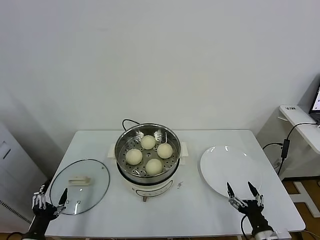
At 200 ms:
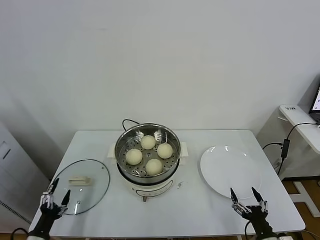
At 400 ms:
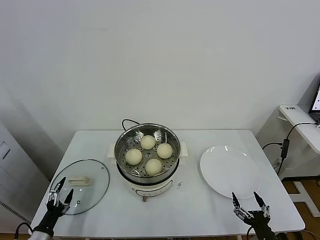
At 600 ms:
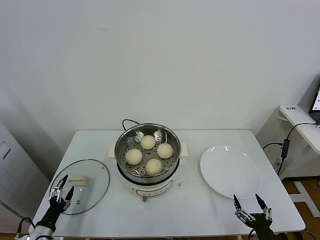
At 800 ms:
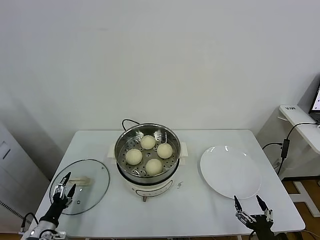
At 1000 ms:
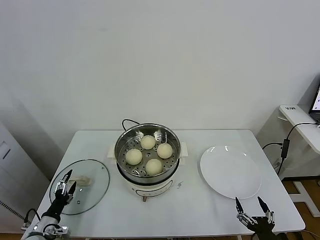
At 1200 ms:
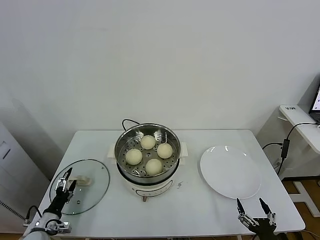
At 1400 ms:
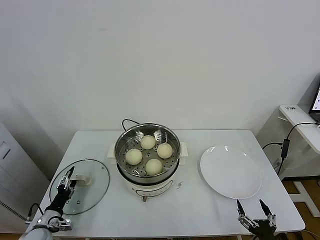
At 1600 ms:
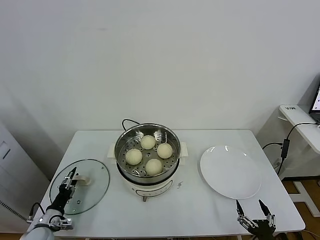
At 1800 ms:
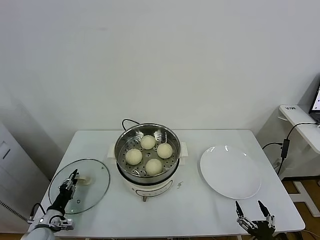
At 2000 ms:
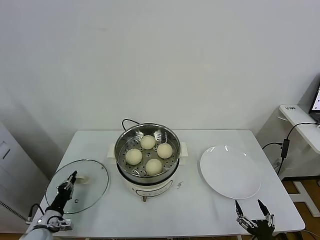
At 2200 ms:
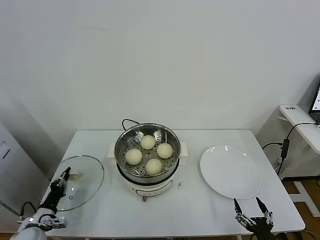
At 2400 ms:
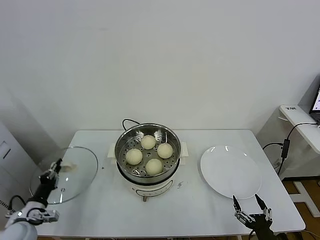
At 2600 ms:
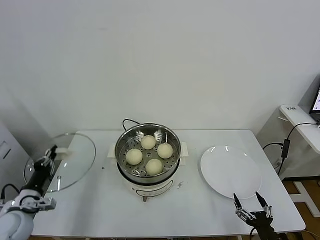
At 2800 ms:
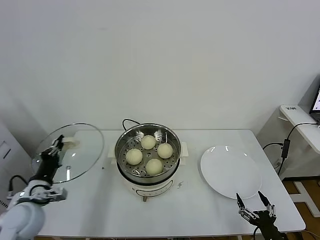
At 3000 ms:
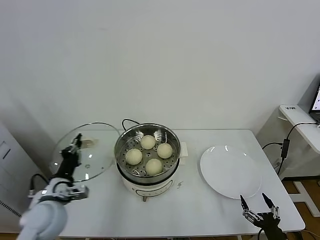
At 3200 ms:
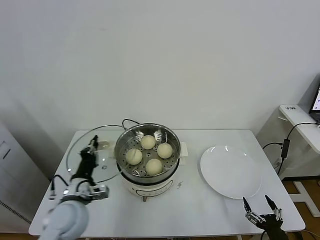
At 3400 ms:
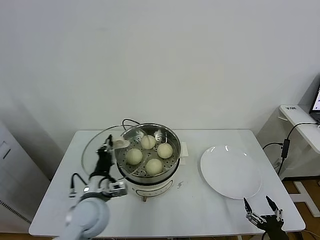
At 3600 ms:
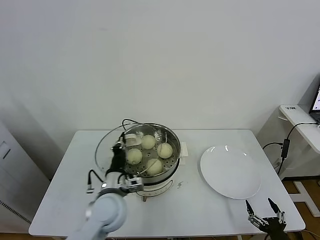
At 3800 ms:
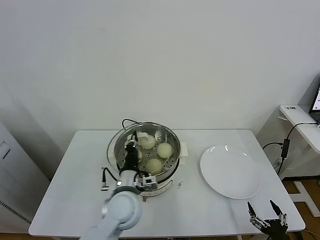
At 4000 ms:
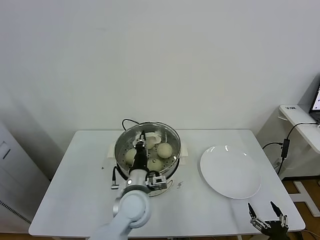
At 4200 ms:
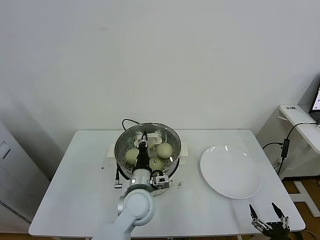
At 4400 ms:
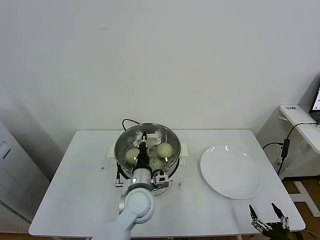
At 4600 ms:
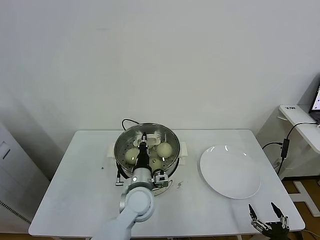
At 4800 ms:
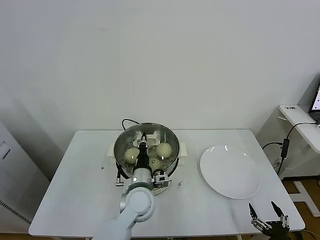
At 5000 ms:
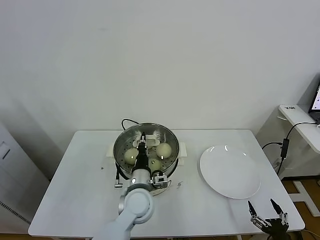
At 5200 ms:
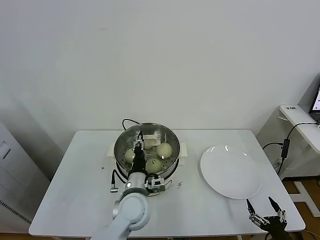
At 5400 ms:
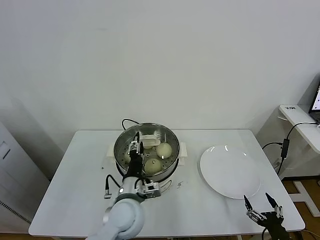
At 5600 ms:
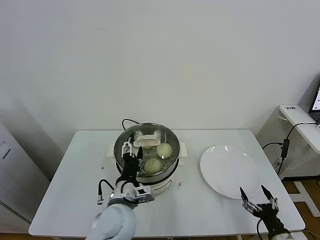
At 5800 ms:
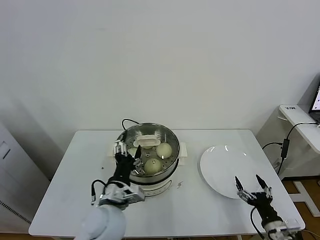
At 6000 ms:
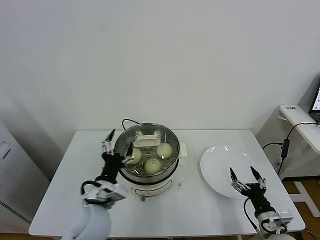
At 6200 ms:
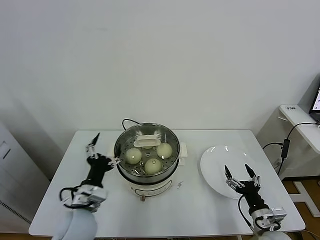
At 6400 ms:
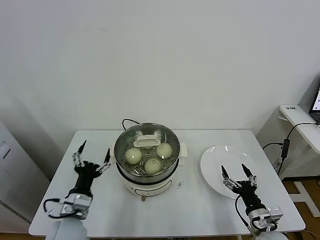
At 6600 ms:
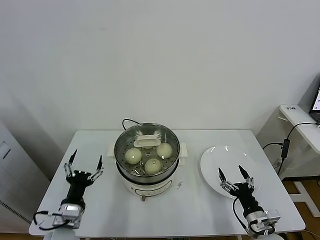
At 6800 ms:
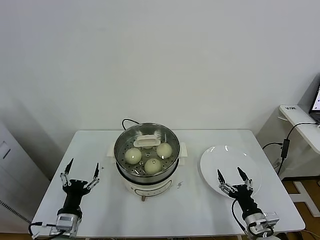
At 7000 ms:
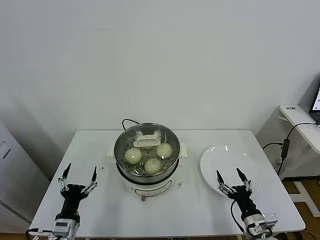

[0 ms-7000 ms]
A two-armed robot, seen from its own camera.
Task of the whole recording: take steamed baozi put them in steamer.
Step, 0 ms to 2000 ms: Grasp the pot lid with left gripper.
Step, 2200 ms to 5600 ms: Place the pot lid on the steamer with left gripper.
0 ms to 1400 ms: The right gripper goes approximately 5 cm backward. Meanwhile the left gripper travels forward and downward by roughly 15 cm.
1400 ms to 2800 ms: The left gripper travels upward by approximately 20 cm, and closes up.
2800 ms to 4200 ms: The left gripper travels to the right by about 35 cm; the right gripper ends up about 5 cm from where it was.
4200 ms to 5600 ms: The left gripper ends up about 5 cm from where it was, and opens.
5600 ms to 7000 ms: The right gripper travels to the left and forward by about 10 cm. Meanwhile the left gripper is displaced to the left and downward by roughly 20 cm.
